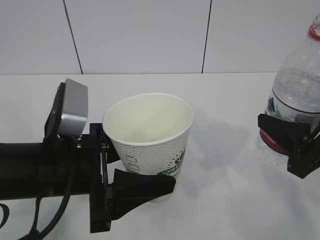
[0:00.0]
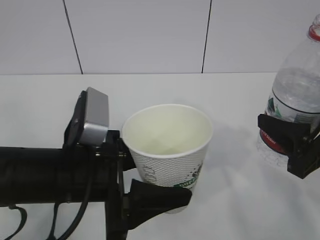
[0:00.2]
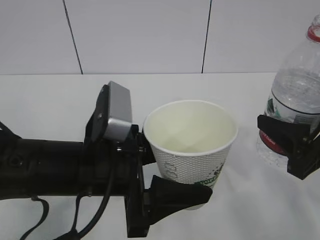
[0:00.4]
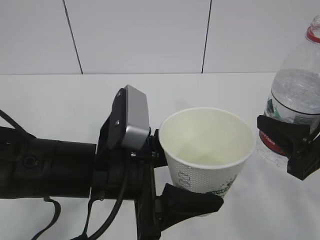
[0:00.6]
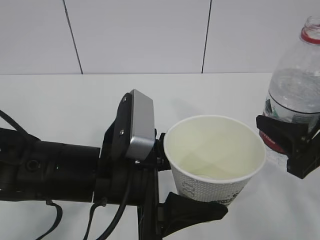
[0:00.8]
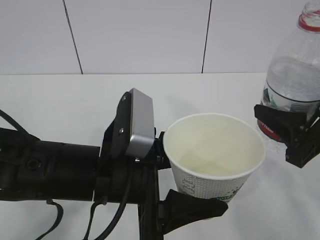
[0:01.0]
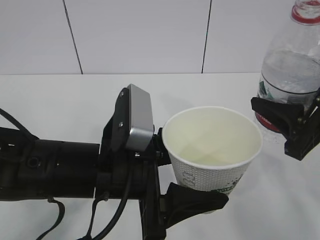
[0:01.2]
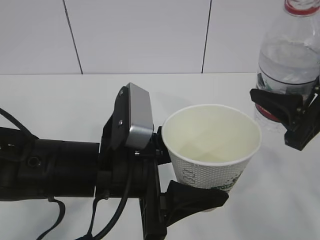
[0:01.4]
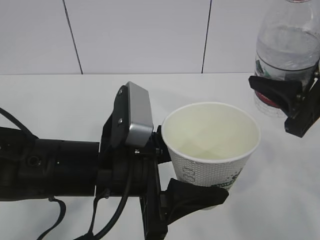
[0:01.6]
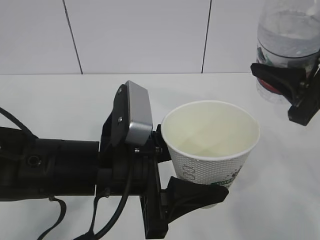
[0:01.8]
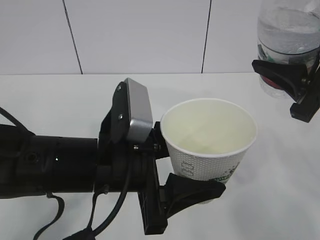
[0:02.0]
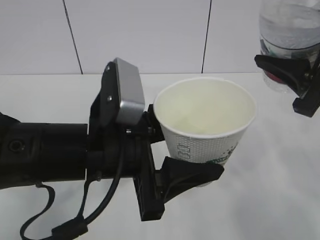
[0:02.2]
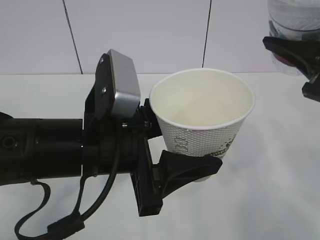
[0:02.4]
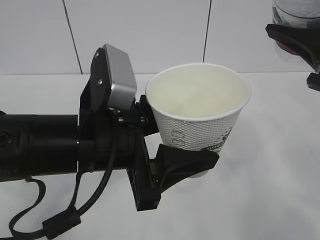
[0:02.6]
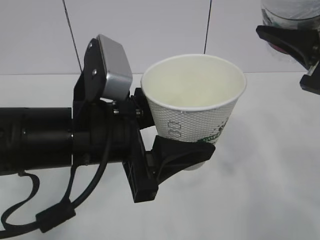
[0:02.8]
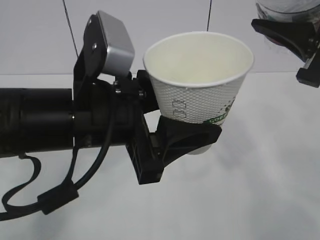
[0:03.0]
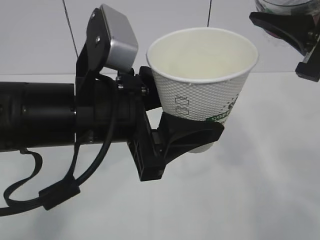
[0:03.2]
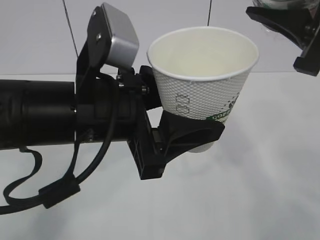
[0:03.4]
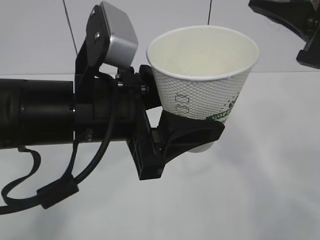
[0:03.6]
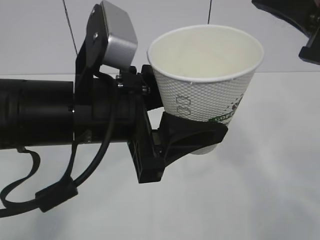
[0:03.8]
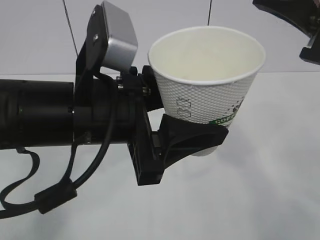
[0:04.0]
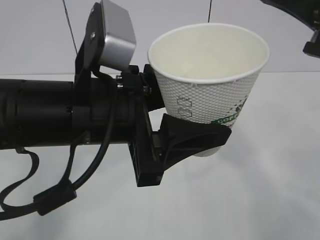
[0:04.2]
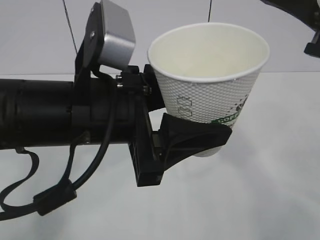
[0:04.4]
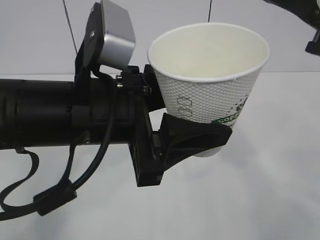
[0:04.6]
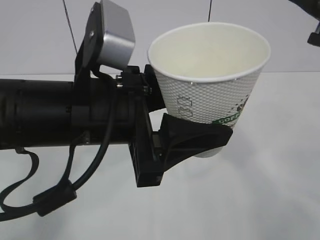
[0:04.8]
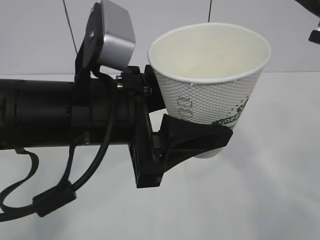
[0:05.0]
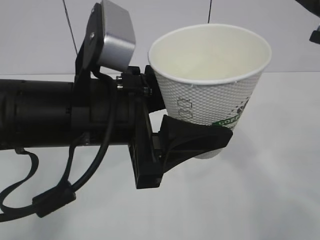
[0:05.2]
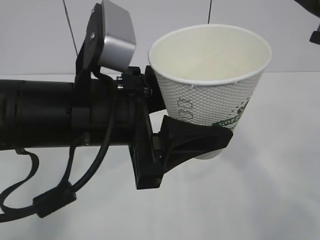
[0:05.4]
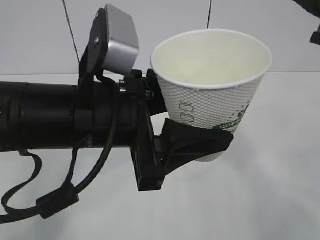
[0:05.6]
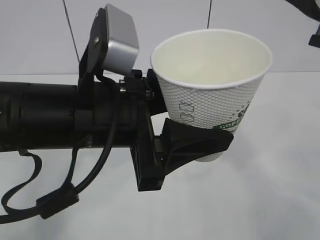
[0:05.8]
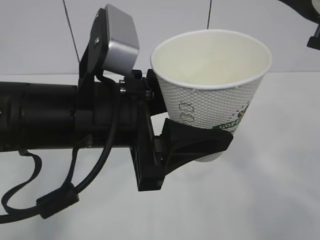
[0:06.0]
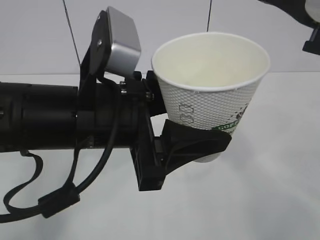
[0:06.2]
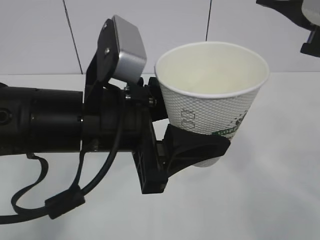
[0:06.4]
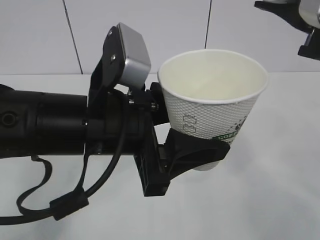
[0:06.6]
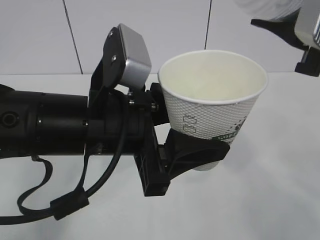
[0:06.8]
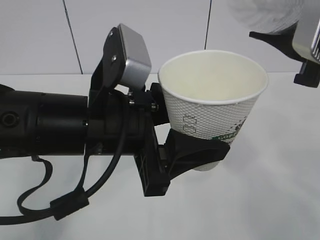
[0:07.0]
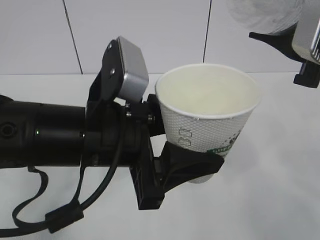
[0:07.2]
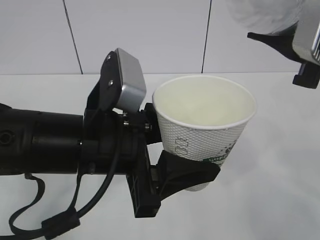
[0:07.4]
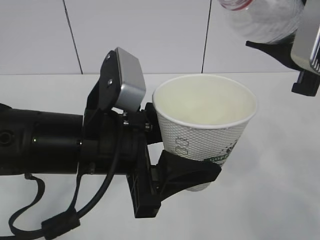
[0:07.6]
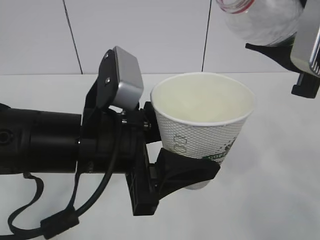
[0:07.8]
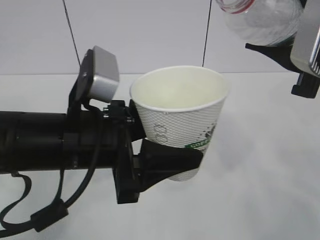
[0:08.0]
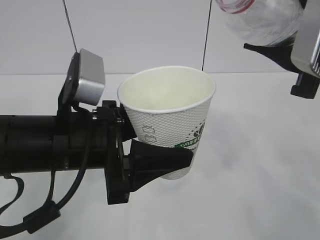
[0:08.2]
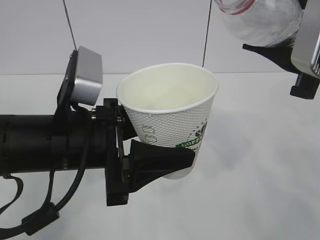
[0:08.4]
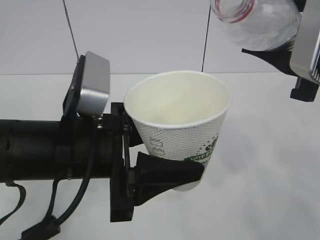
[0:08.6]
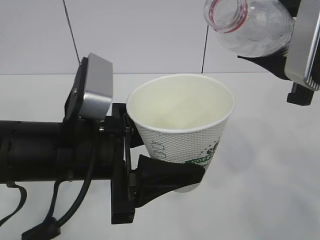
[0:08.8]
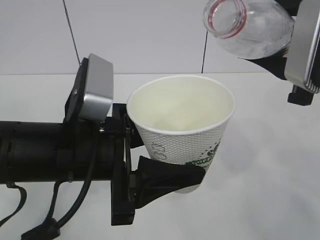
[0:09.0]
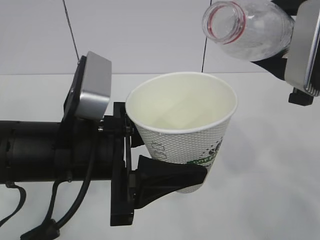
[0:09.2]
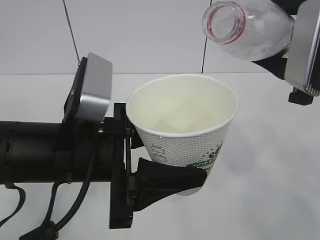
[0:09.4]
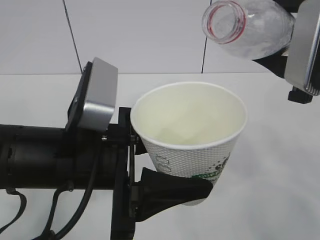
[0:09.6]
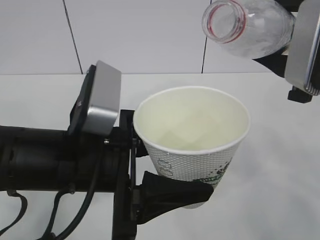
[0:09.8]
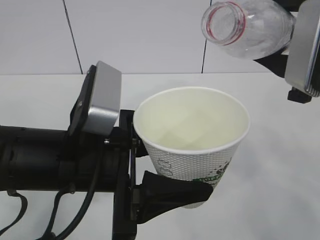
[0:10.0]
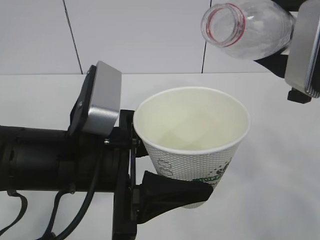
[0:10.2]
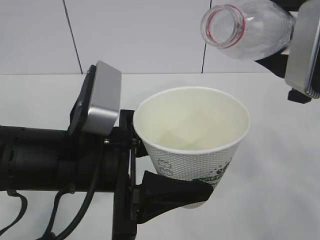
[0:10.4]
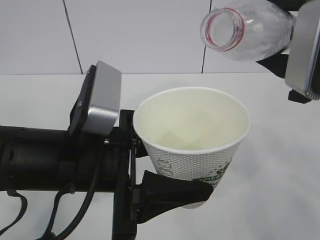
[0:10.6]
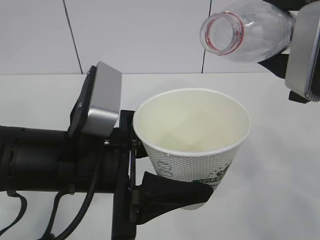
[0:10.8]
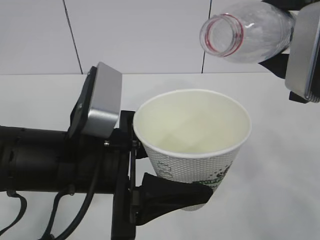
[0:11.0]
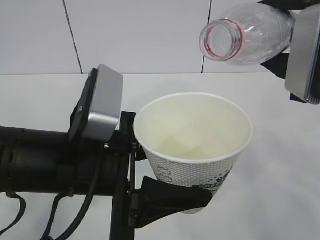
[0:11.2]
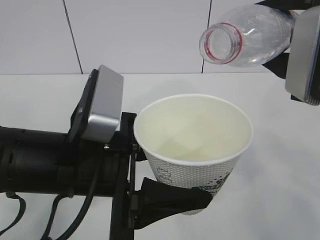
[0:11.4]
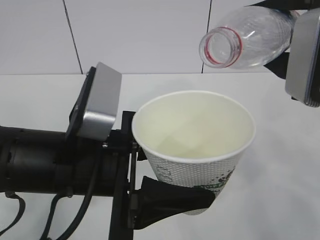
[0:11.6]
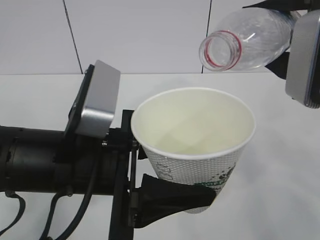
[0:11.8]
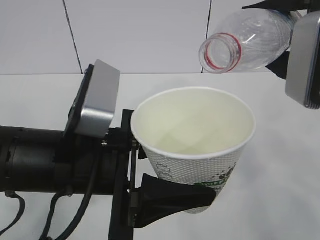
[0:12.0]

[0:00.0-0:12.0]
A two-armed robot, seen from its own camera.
0:00.0 to 0:01.6: The left gripper goes about 5 cm to the right. Meanwhile the right gripper shifts approximately 5 cm upward.
0:01.6 to 0:03.0: The two grippers go about 5 cm upward.
0:03.0 to 0:04.4: There are only small adjustments of the grippers.
0:04.4 to 0:06.0: There are only small adjustments of the grippers.
0:09.0 to 0:10.4: Both grippers stay put.
0:10.4 to 0:12.0: The grippers stay close to where they were, moving slightly.

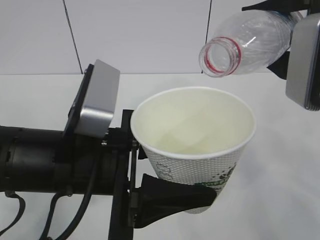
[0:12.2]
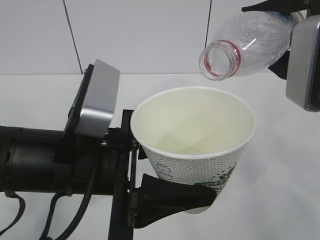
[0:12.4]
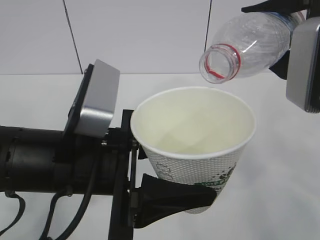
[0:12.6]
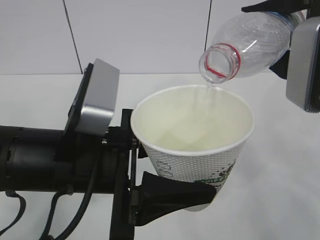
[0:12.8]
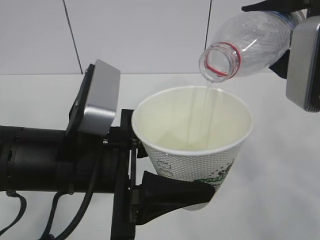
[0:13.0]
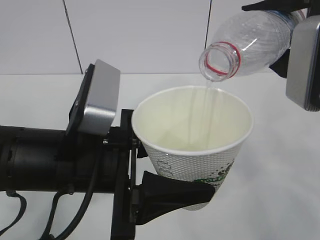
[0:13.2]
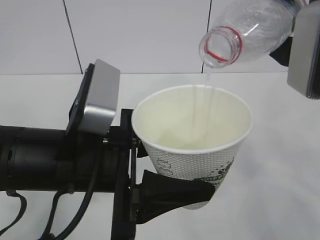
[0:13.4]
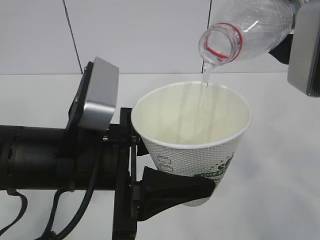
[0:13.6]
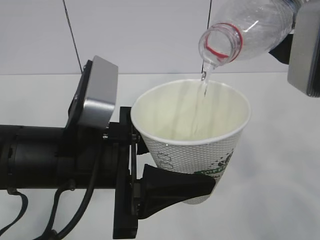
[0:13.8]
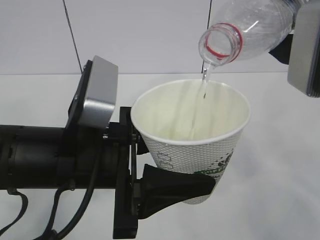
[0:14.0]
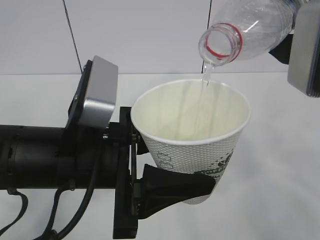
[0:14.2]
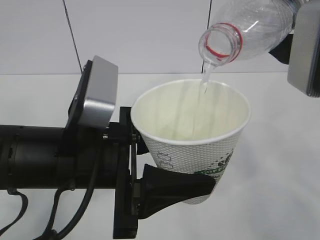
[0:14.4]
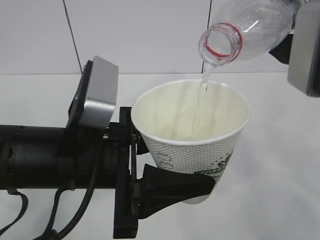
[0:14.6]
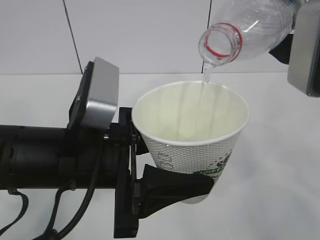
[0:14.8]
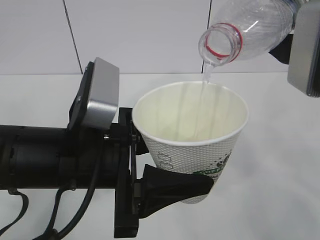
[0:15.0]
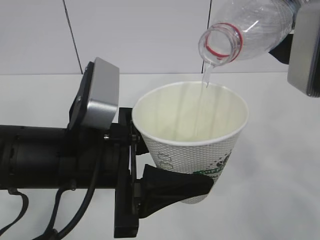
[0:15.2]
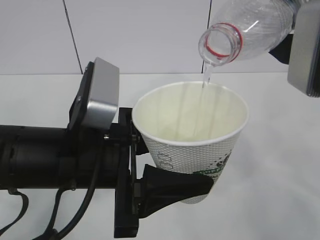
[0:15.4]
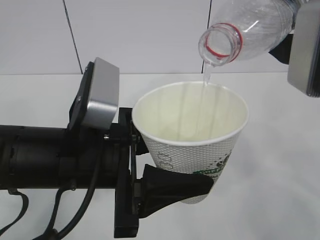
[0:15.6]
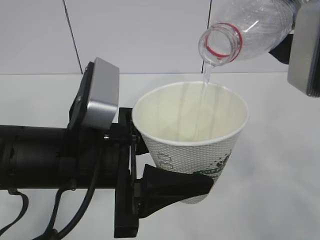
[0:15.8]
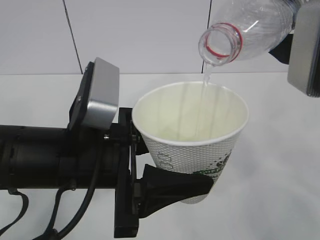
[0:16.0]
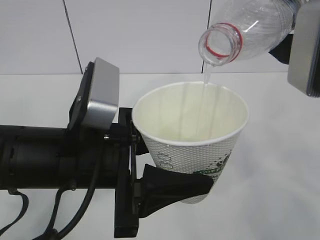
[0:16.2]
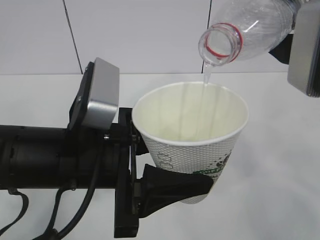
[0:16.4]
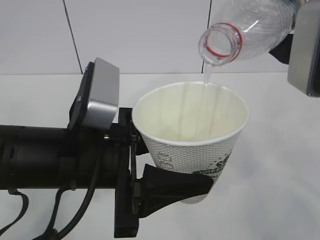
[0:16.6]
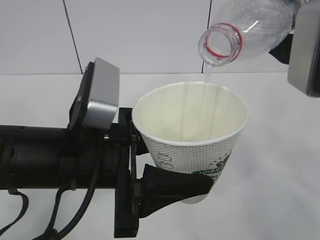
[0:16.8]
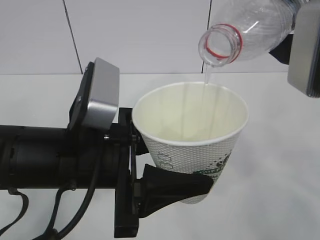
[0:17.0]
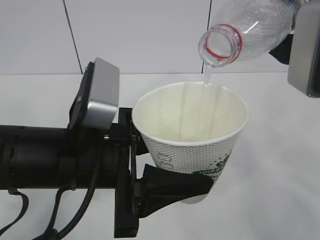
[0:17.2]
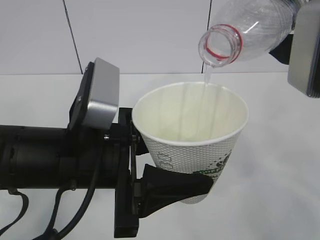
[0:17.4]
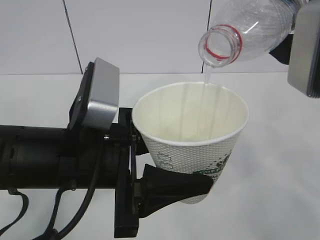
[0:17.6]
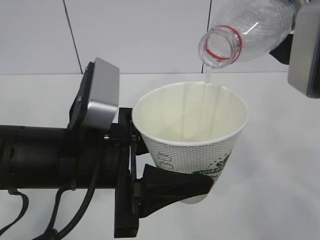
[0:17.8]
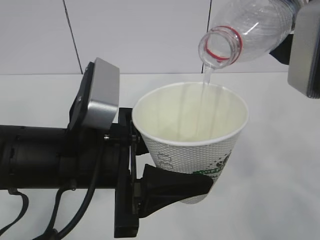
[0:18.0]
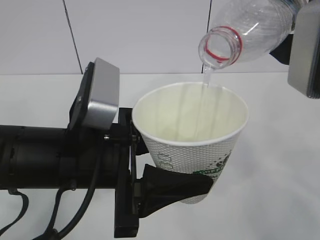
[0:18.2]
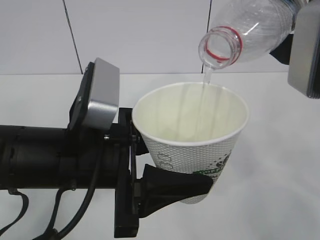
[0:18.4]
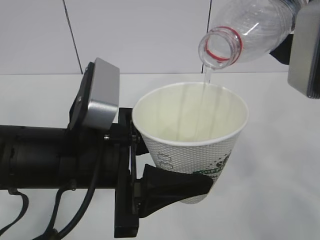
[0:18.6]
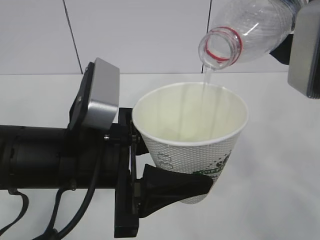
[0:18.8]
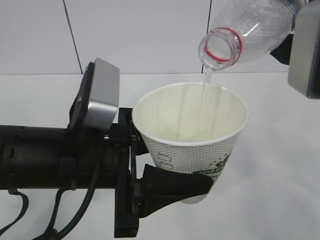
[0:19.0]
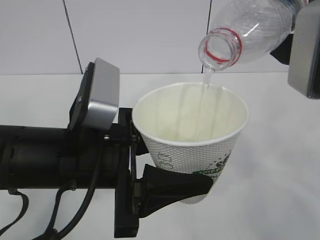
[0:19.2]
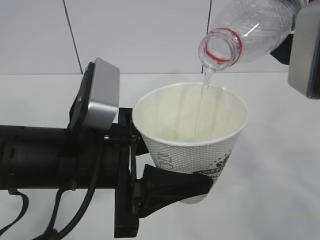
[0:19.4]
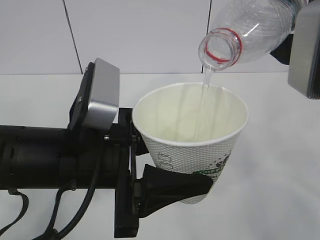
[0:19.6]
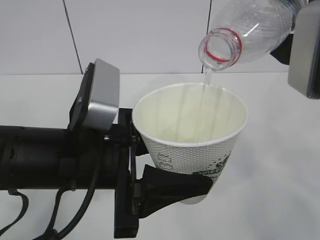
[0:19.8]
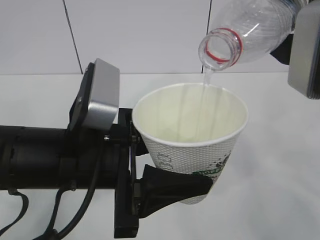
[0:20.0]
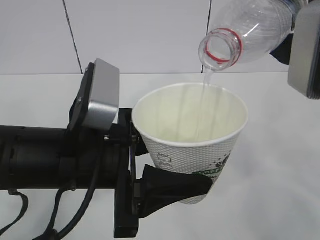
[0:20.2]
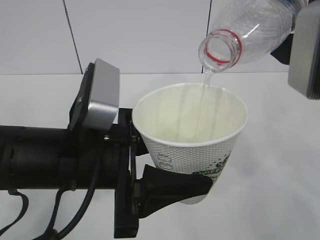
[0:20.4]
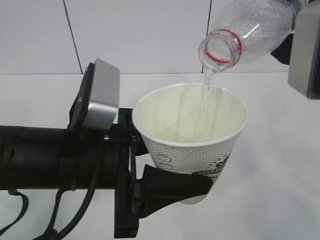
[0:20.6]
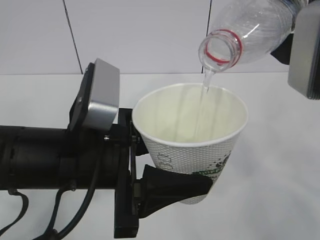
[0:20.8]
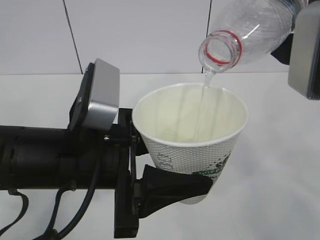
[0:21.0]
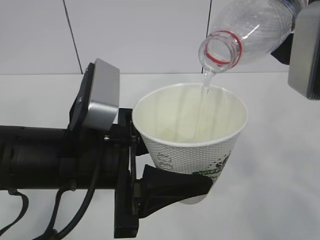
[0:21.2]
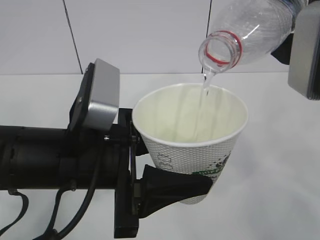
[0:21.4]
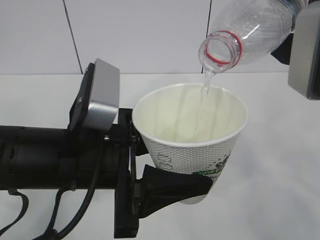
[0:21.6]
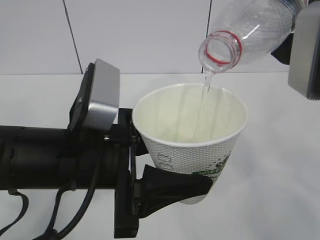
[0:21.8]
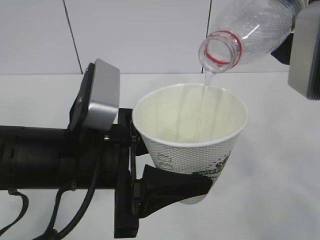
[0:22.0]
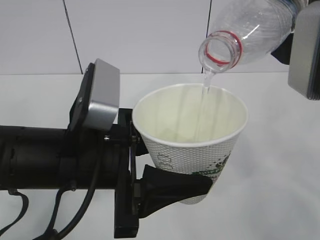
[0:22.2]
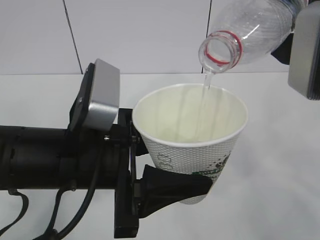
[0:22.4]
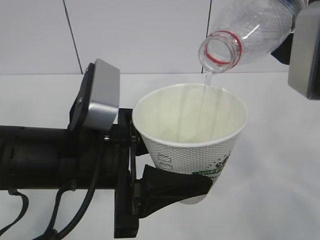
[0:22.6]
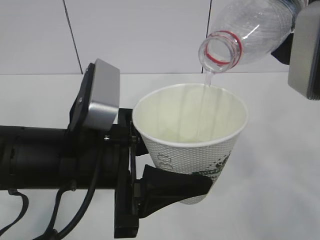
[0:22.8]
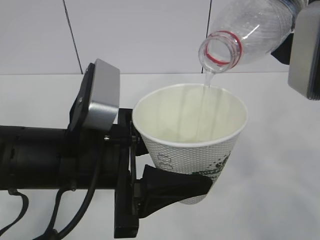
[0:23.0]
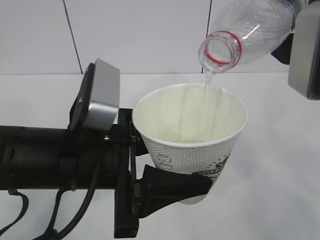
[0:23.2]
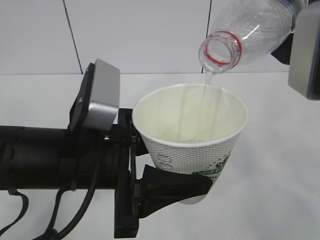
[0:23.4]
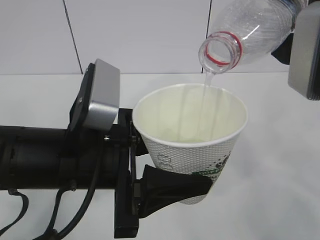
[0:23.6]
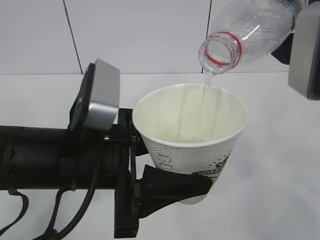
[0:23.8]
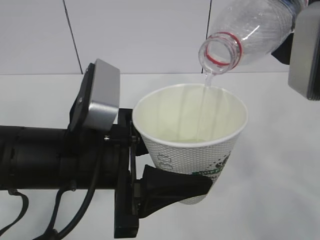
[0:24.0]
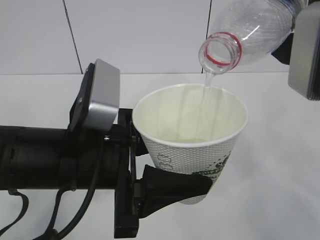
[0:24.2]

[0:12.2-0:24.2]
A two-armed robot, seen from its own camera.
0:12.2 to 0:13.8: The two grippers keep their place.
0:13.8 to 0:24.2: Both grippers stay about where they are.
